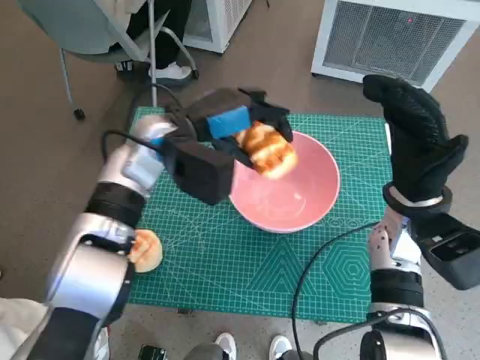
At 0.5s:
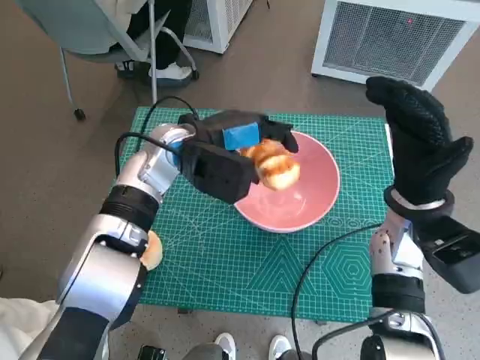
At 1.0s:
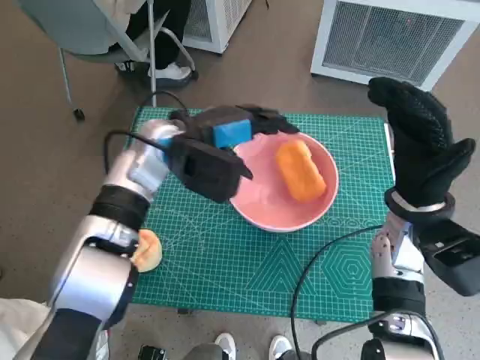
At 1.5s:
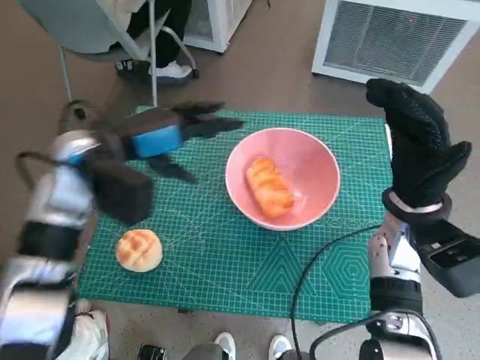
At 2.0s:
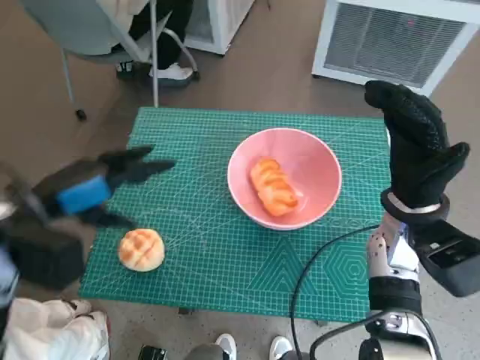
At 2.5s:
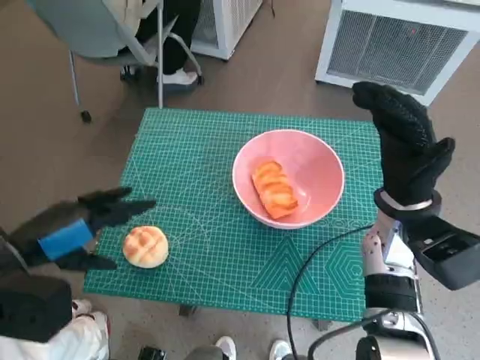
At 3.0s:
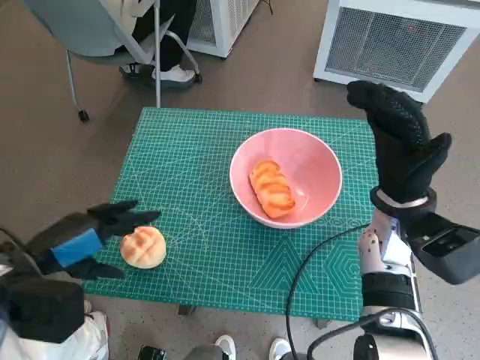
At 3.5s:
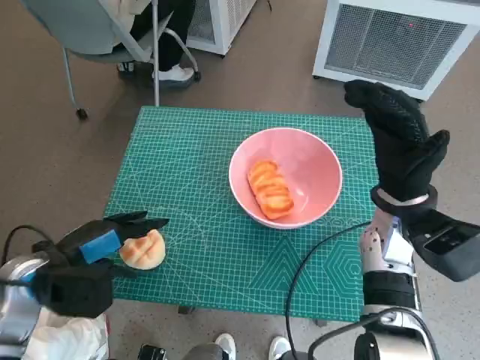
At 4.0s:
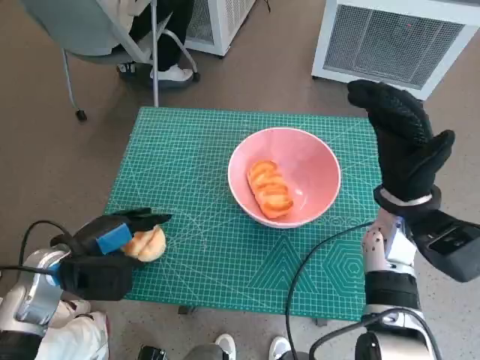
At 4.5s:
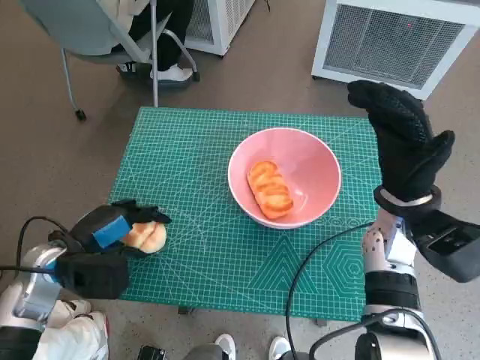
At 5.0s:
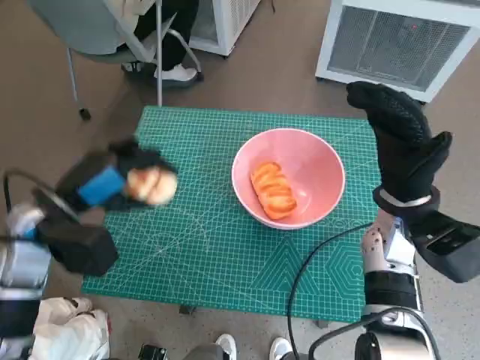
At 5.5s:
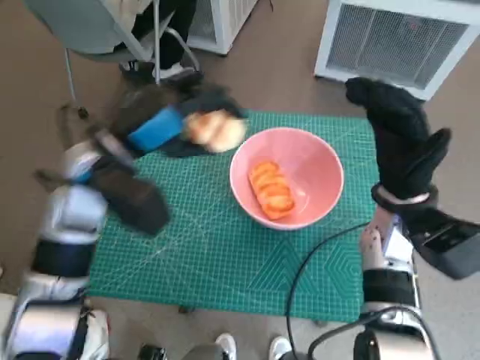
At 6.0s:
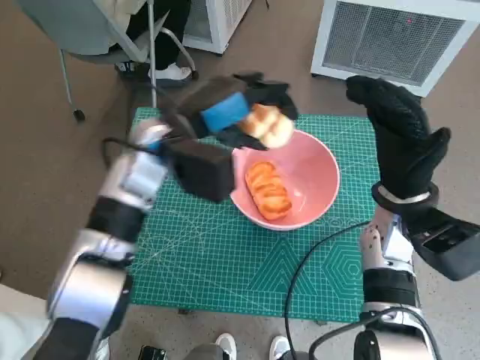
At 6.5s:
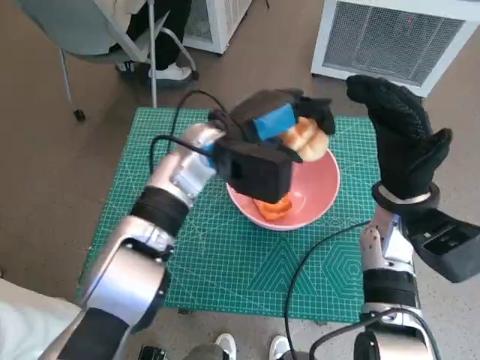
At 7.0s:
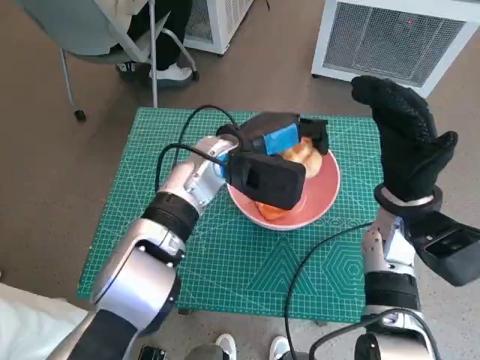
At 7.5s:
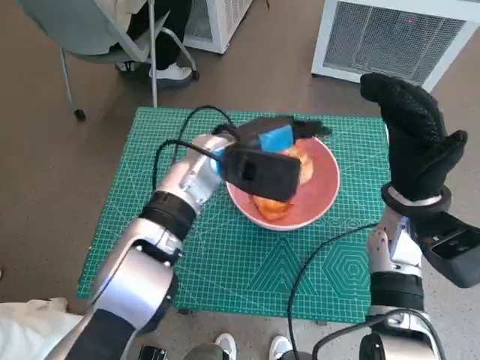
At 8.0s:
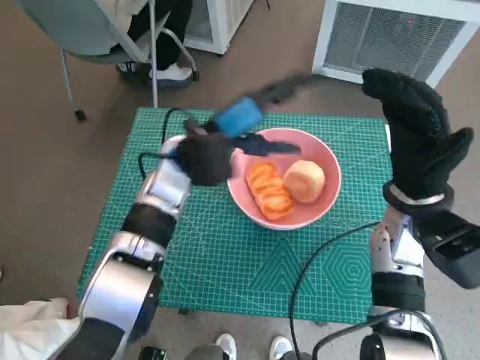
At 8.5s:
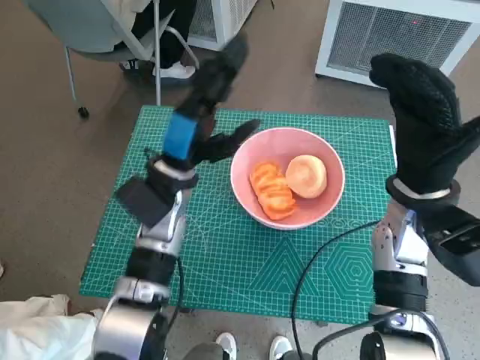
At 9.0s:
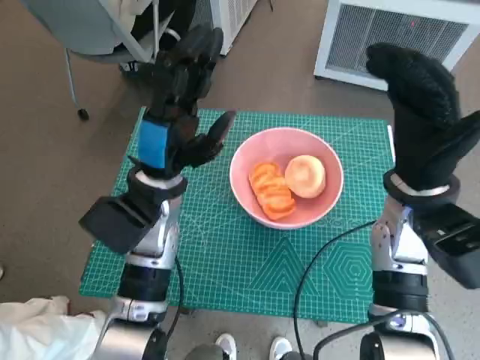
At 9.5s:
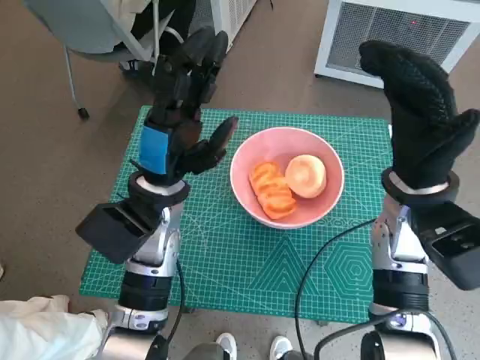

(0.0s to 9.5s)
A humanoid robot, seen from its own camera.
Task of the whole recording: Push the bowl to the center of the table and put the bread into the bowl.
Step, 2.0s - 4.0s: Grasp the round bread with left hand.
Step, 4.5s - 8.0s: Place the round bread in pink bowl with left hand.
0.0s - 2.0s: The left hand shifts approximately 20 cm to the left and backward.
2.0s - 4.0s: The left hand is displaced downward by about 10 cm.
4.0s - 5.5s: The left hand moves upward, to the right and forward, roughly 15 cm.
5.5s - 7.5s: The left hand travels to the right and forward by some 15 cm.
7.5s - 9.5s: The left hand goes some 10 cm backward and to the left.

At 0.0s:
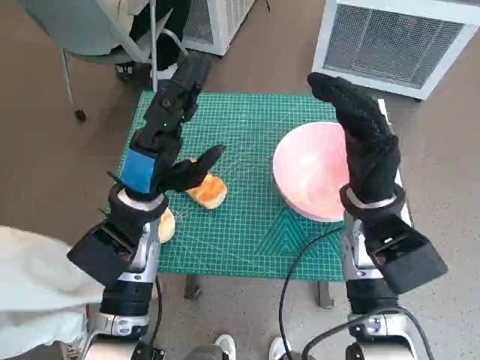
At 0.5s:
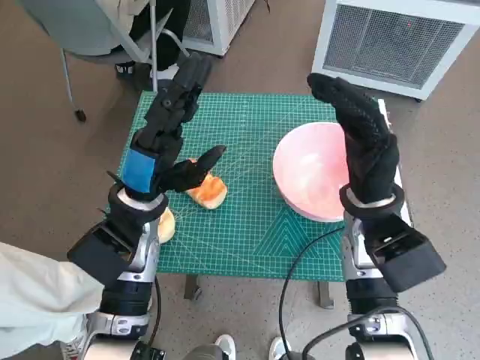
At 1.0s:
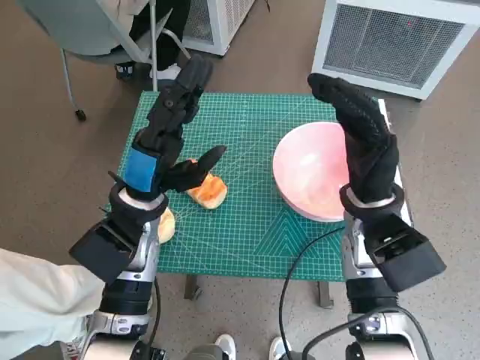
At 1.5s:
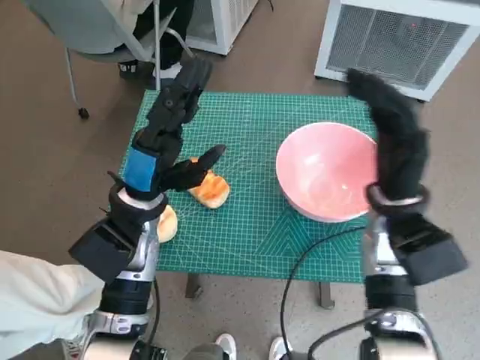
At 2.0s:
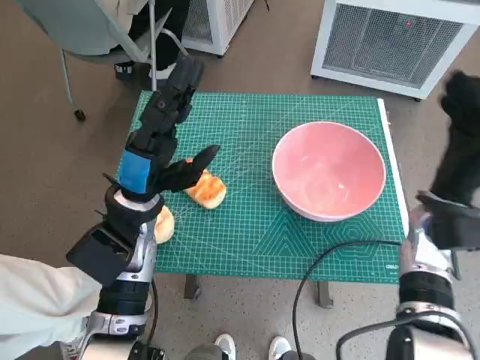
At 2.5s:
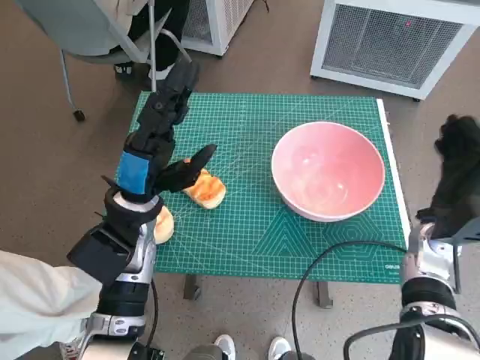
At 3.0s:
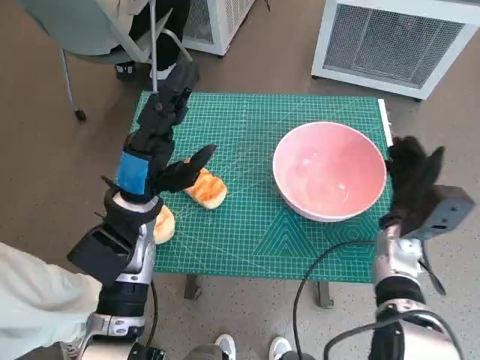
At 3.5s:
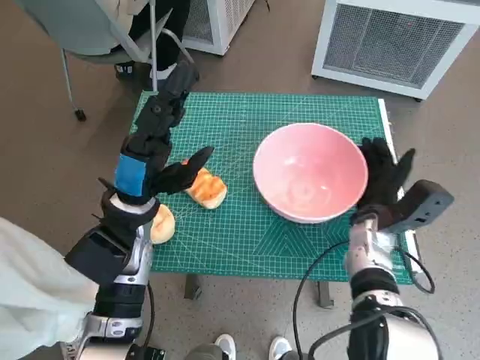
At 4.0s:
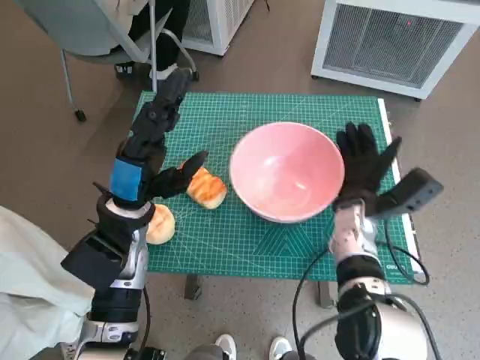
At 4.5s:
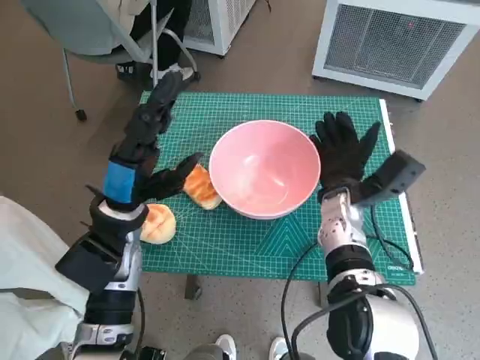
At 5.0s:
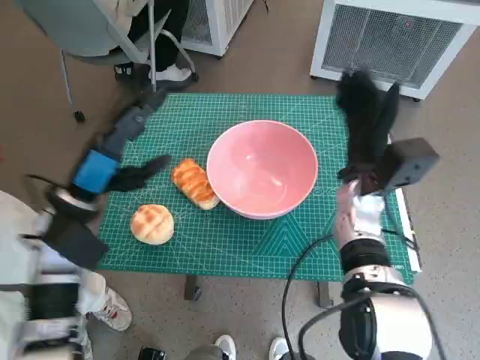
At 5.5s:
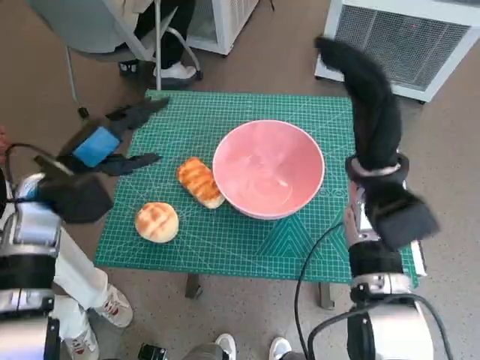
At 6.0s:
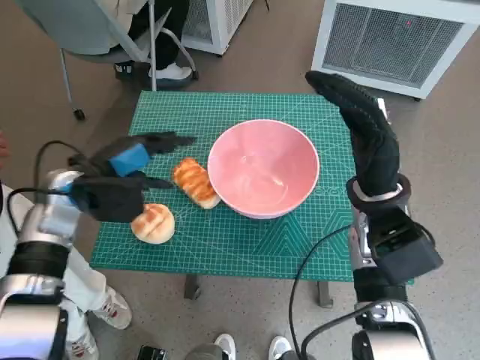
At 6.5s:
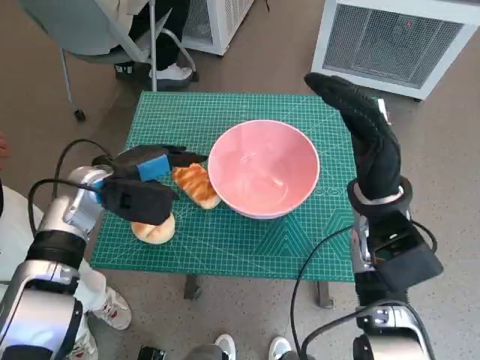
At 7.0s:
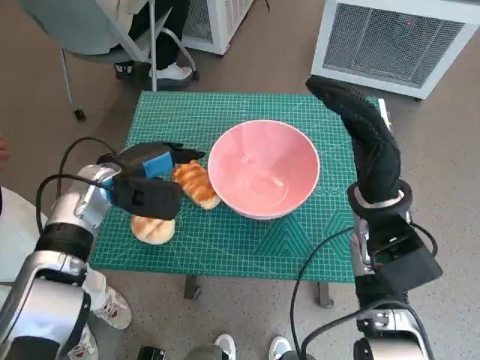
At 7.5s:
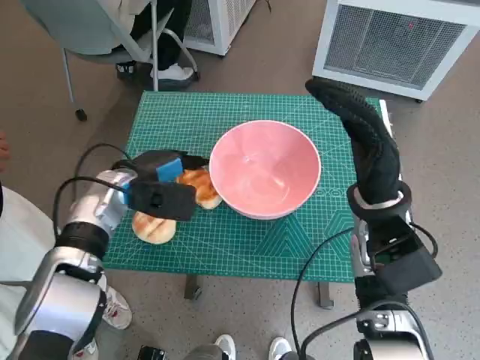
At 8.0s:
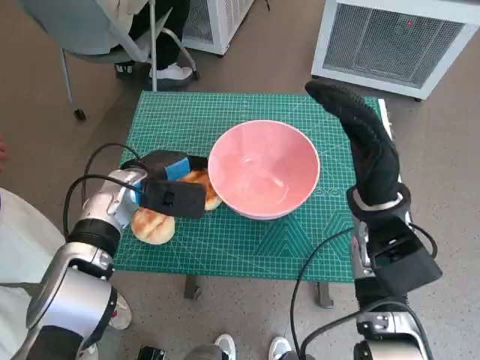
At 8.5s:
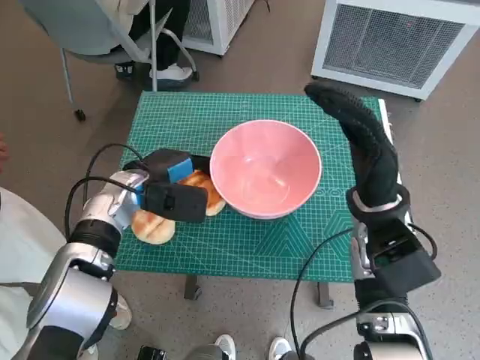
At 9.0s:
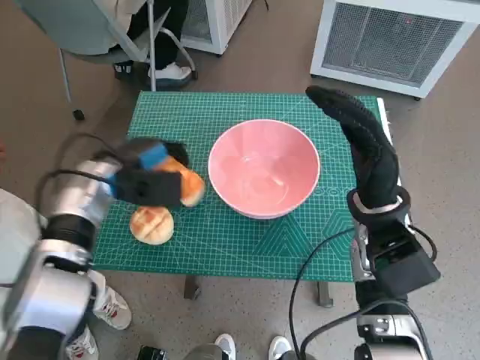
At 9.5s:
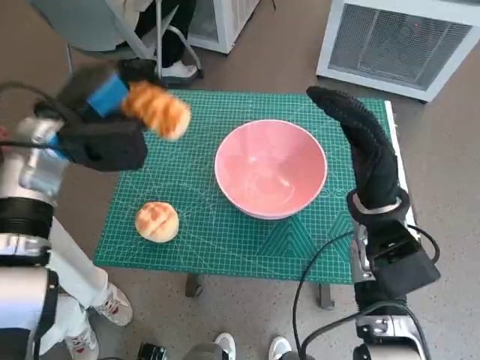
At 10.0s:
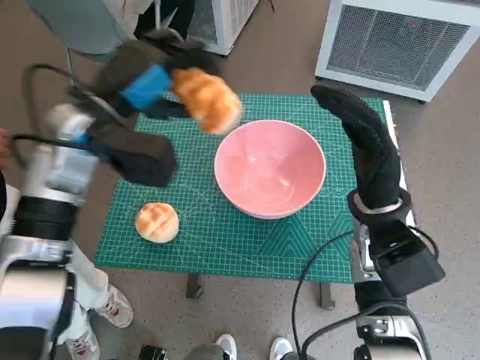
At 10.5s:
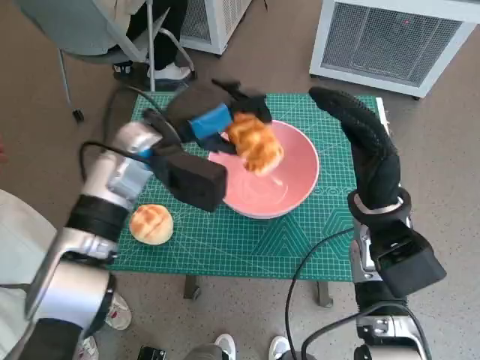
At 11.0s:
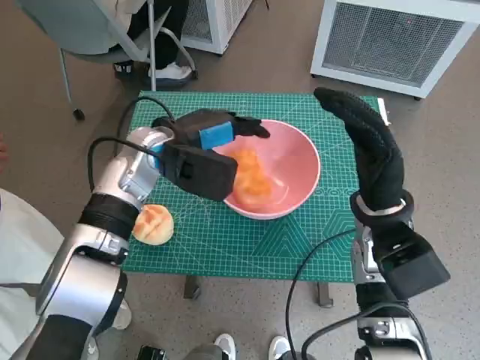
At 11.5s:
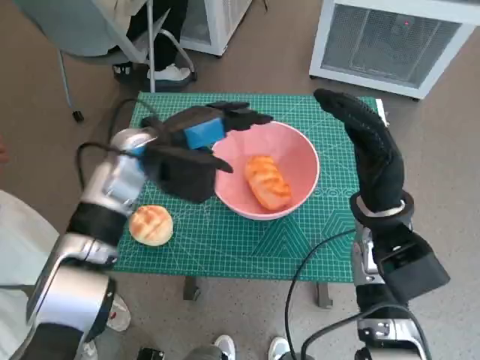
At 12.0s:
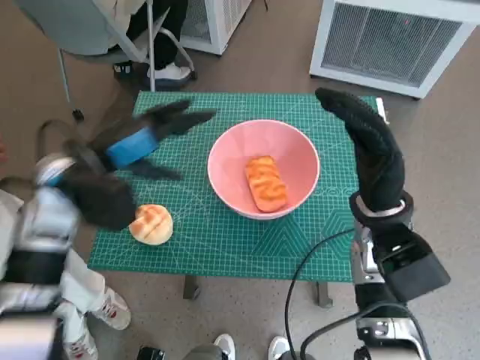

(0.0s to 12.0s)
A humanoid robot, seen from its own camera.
Task of the whole recording: Push the bowl to the center of the table and put the bread into the bowl.
Step, 0.0s - 4.5s: Move the pink bowl to the center of table with right hand.
Step, 5.0s - 8.0s: Grasp the long bread with left hand.
Step, 8.5s - 11.5s: Place the long bread in pink bowl with left hand.
2.0s - 4.0s: The right hand heads to the left and downward, covering some 10 cm.
4.0s - 6.0s: The left hand travels to the left by about 10 cm. The right hand heads upward, covering about 10 cm.
6.0s - 8.0s: The left hand heads to the right, covering approximately 5 cm.
8.0s - 10.0s: The left hand moves upward, some 15 cm.
10.0s - 12.0s: The left hand goes to the right and returns, about 5 cm each way.

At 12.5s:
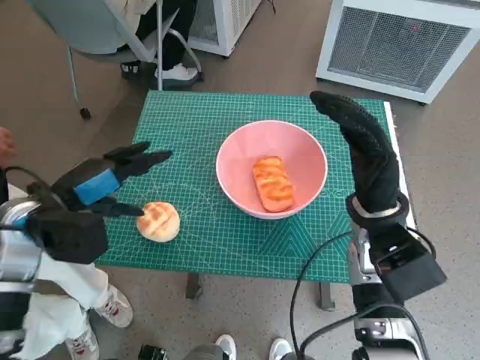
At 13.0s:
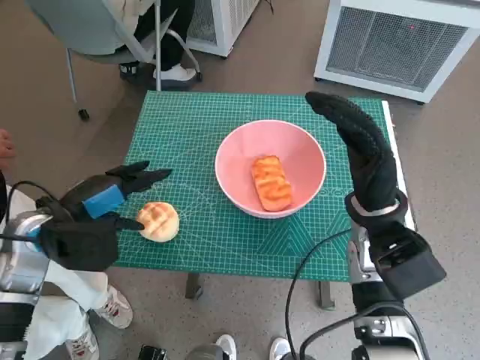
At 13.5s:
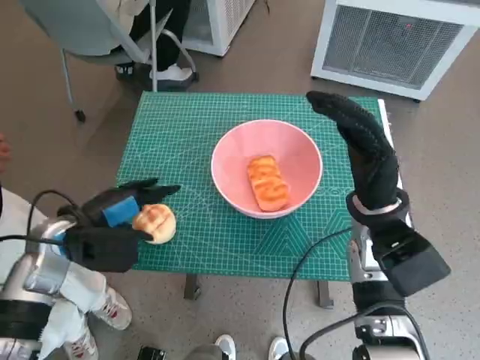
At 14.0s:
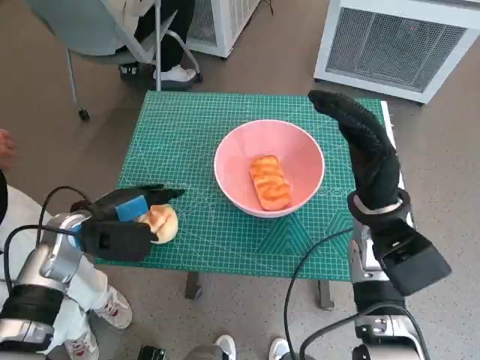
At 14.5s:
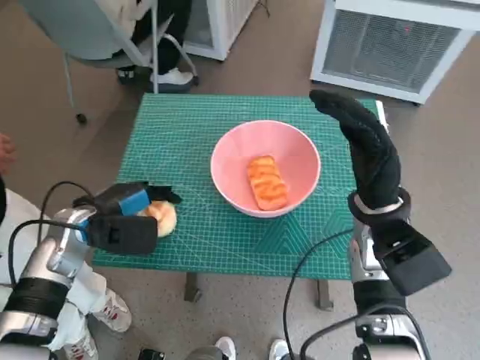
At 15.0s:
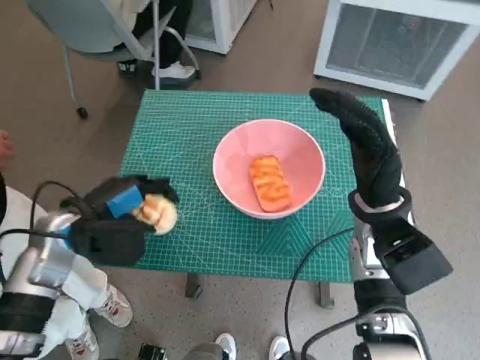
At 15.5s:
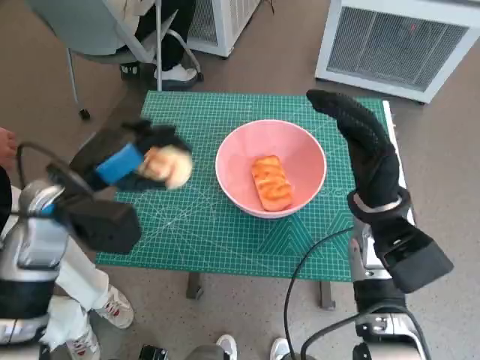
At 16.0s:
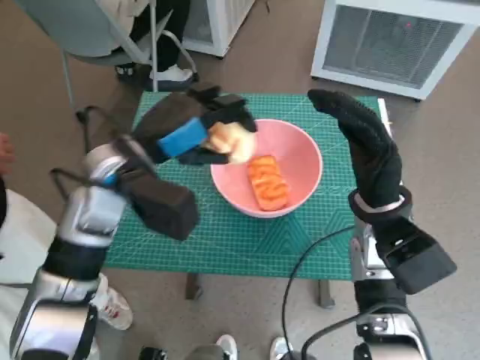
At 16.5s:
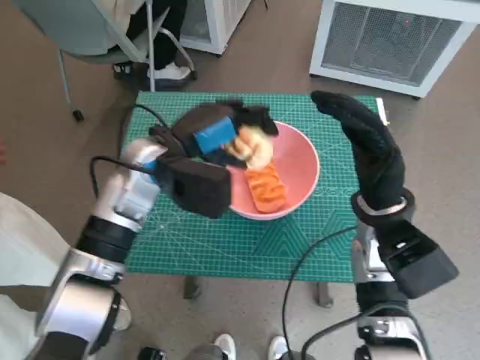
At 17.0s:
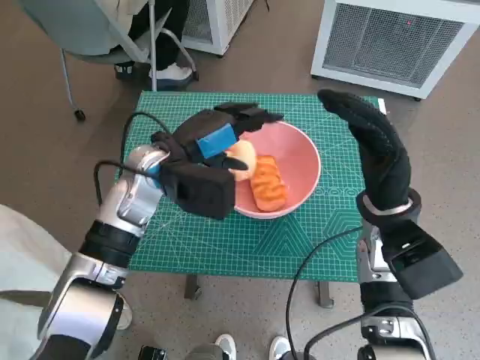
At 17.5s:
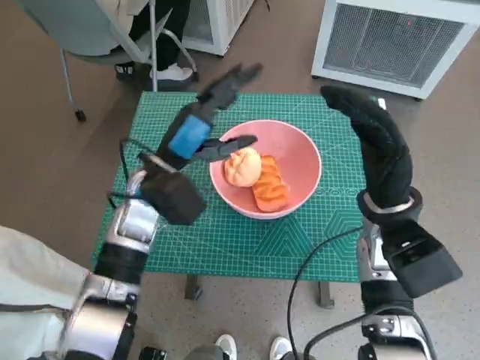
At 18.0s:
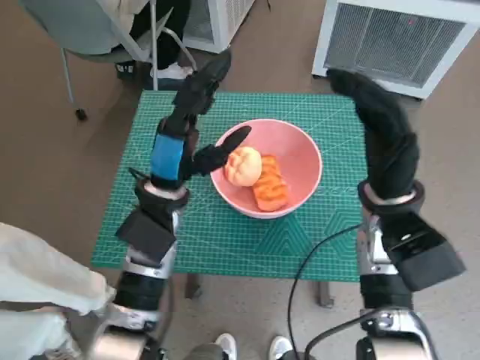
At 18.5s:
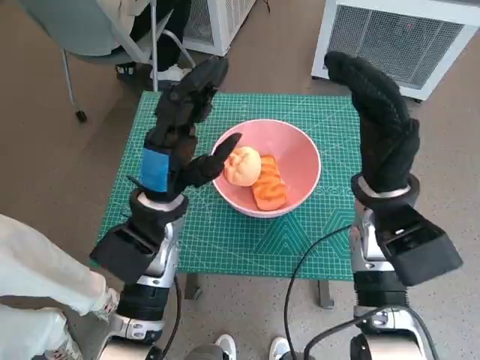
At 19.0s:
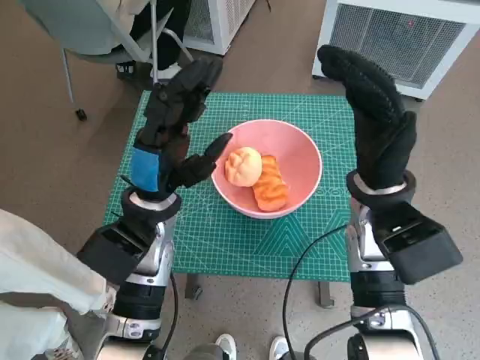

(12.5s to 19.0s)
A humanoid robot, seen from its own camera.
Task of the whole recording: Push the bowl to the center of the table and put the bread into the bowl.
Step, 12.5s - 14.5s: Grasp the round bread with left hand.
Step, 15.0s - 17.5s: Place the round bread in pink bowl with left hand.
12.5s - 14.5s: The left hand is displaced downward by about 5 cm.
14.5s - 17.0s: The left hand shifts roughly 15 cm to the right, upward and forward.
17.0s - 19.0s: The left hand travels backward by approximately 5 cm.
